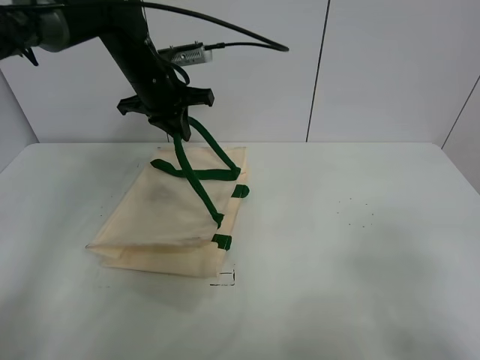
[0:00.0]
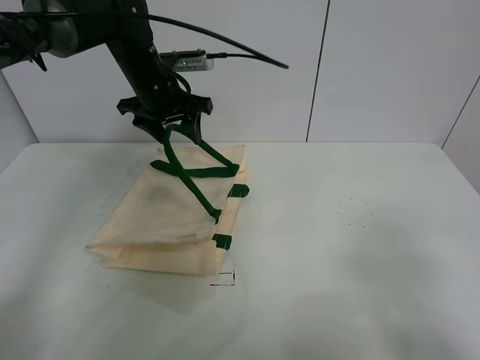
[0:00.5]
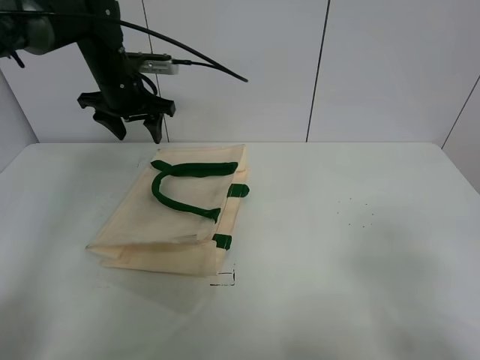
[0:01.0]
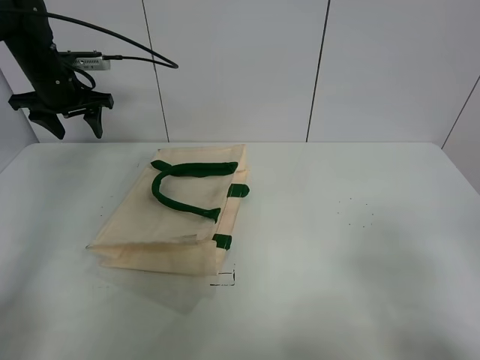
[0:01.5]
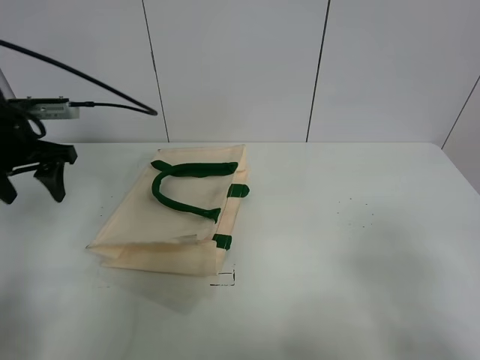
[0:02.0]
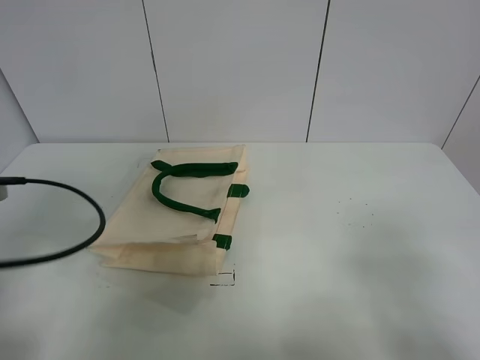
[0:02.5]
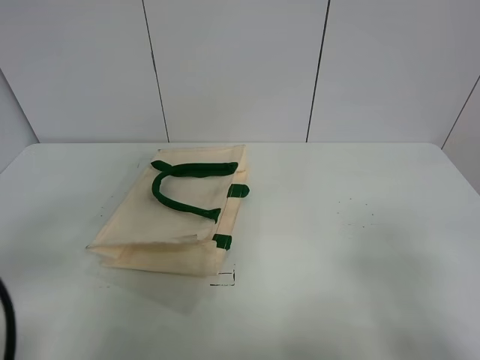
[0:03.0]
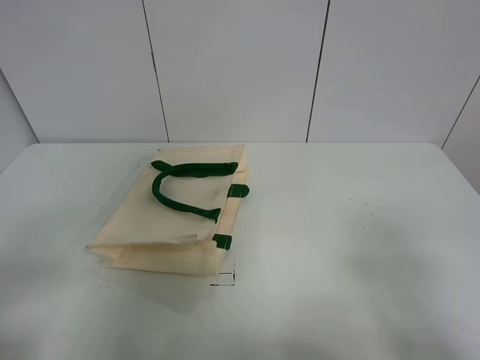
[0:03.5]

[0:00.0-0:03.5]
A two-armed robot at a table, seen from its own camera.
Task of the whole recording: open the white linen bag and put the orange in the bag.
0:00.0 to 0:02.0: The left gripper shifts roughly 20 cm to the left and backward, and opens its fingers.
0:02.0 to 0:03.5: The left gripper shifts approximately 30 cm backward.

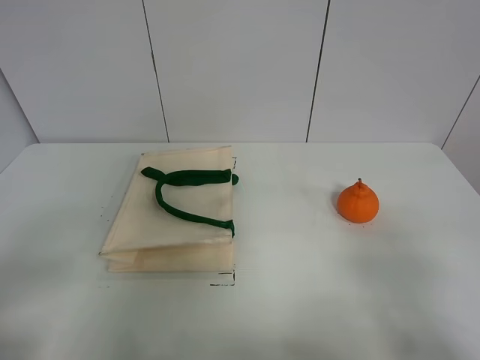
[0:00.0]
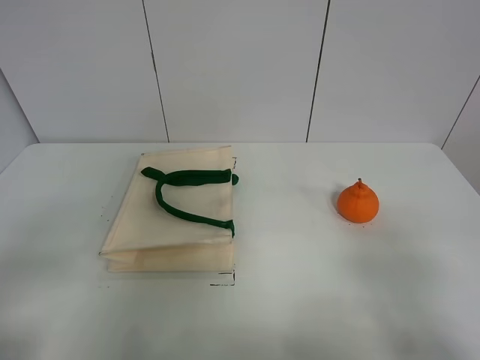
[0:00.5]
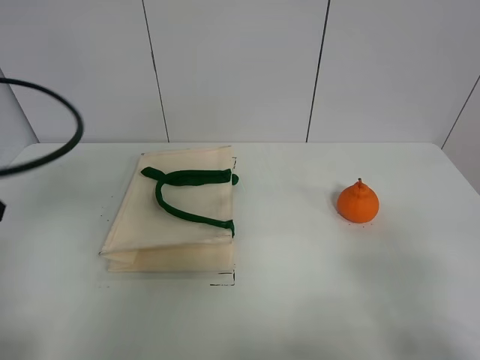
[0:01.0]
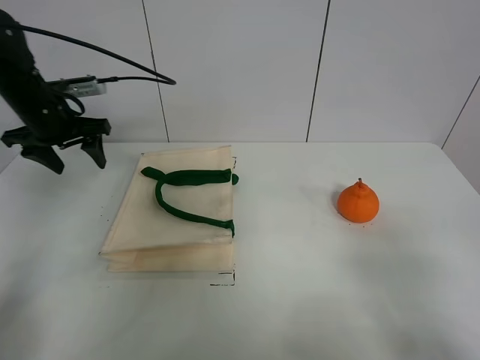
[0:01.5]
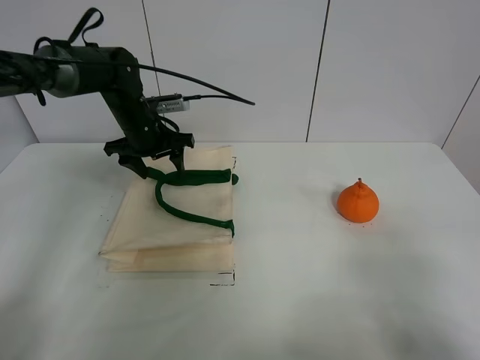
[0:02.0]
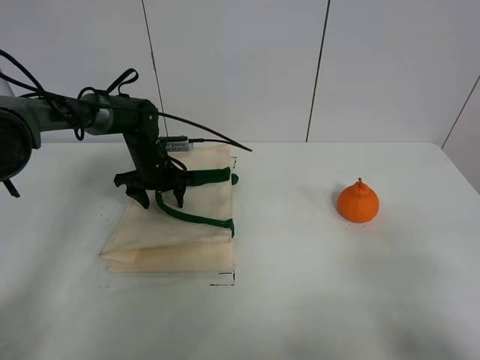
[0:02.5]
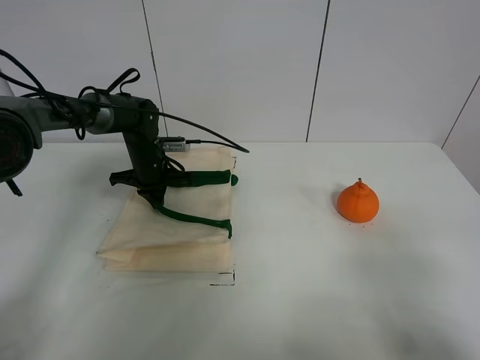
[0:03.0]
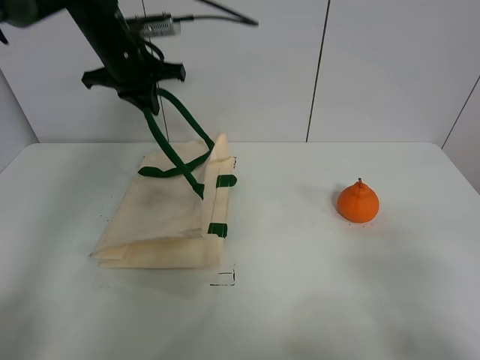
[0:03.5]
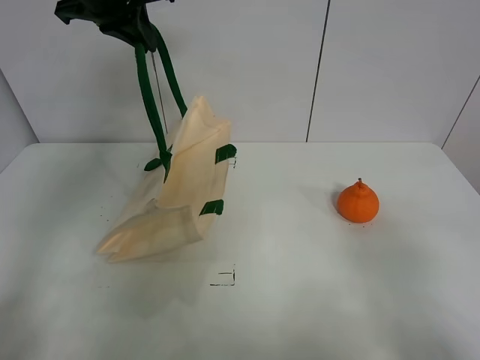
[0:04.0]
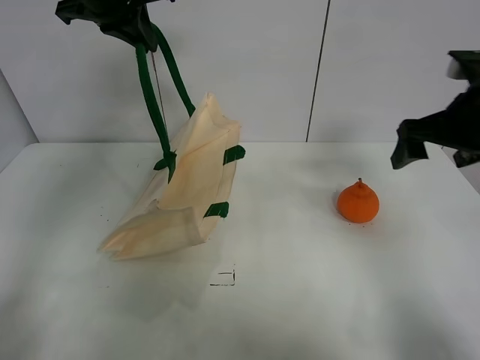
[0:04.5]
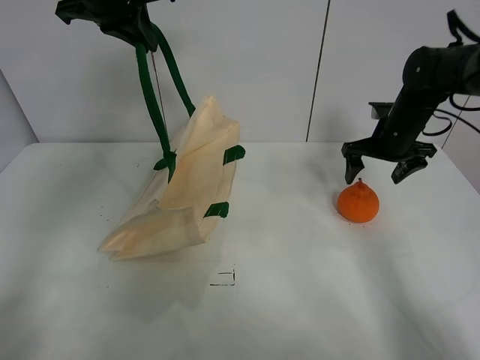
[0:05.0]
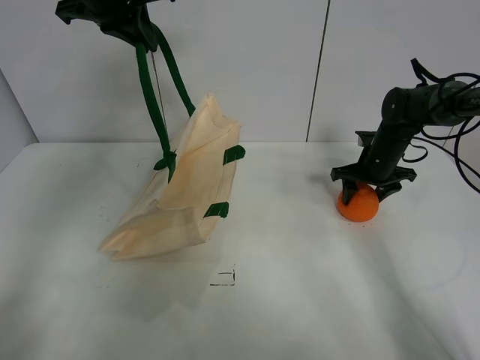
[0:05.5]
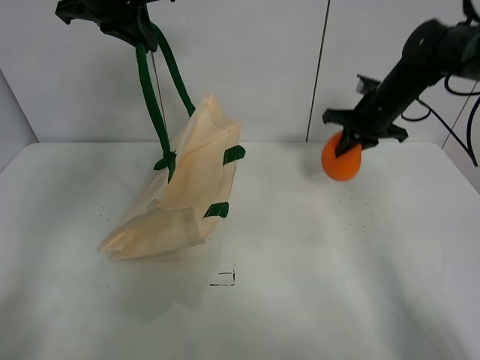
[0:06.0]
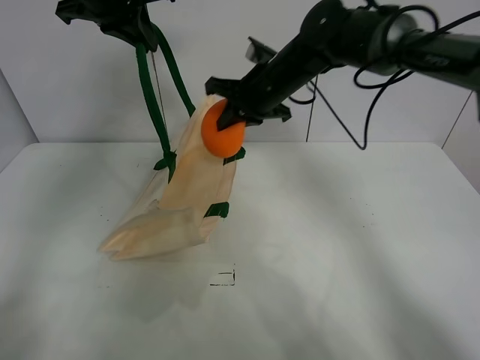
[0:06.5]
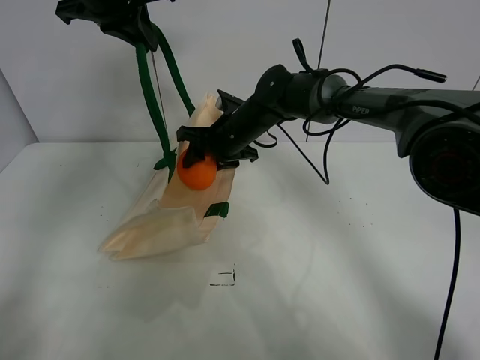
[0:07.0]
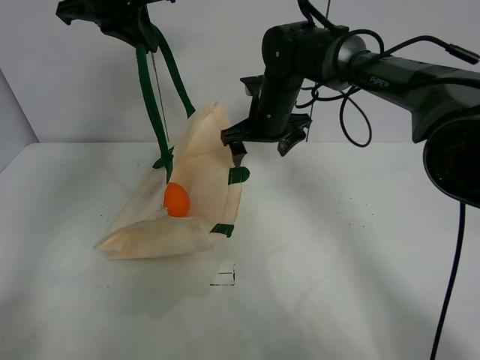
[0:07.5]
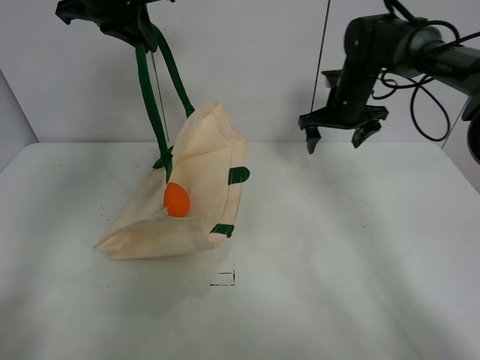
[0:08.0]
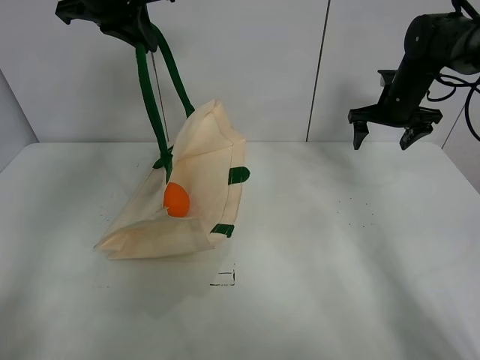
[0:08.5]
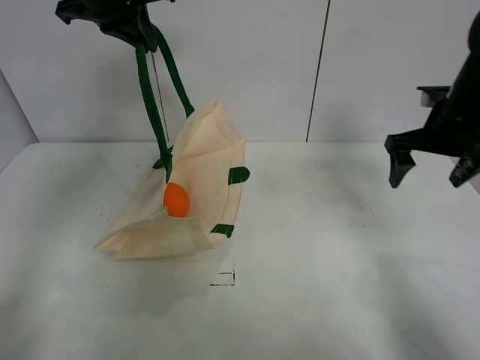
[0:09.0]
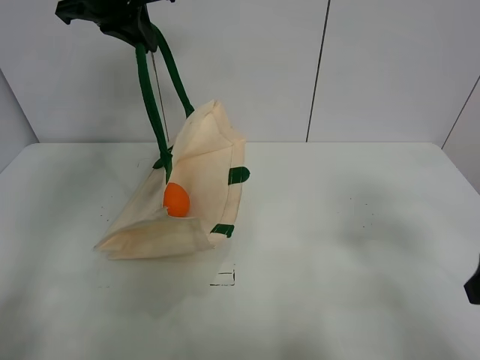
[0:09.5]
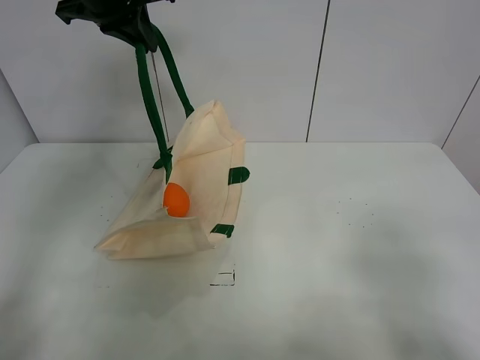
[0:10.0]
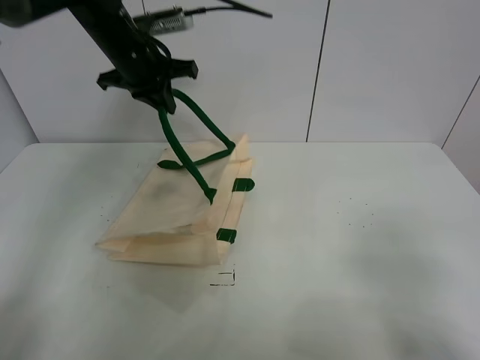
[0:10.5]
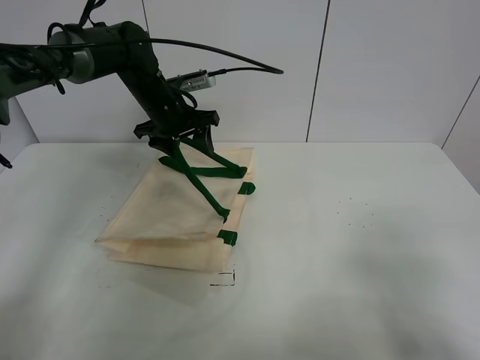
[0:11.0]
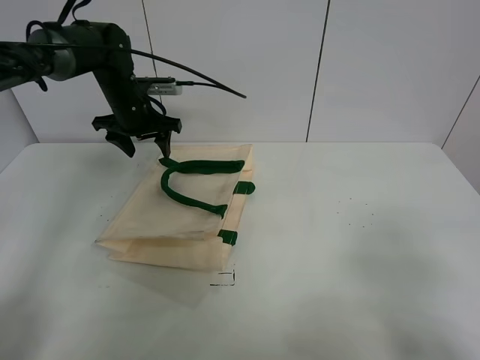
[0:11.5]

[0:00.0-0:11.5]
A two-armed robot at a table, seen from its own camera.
Task of the whole recording: open the white linen bag and put the orange in the bag.
Step, 0:00.0 to 0:03.5: Lift the handbag with left gripper.
Step, 0:04.0 to 0:05.5: Grasp the orange with right gripper.
Step, 0:06.0 to 0:07.0: Place the orange in the handbag with right gripper.
Step, 0:07.5 to 0:11.0: Put down the handbag with left gripper.
0:00.0 to 0:02.0: The left gripper is displaced forward by roughly 40 cm.
0:02.0 to 0:04.0: The left gripper shifts about 25 cm upward, and closes up.
0:04.0 to 0:06.0: The right gripper travels forward by about 40 cm, and closes its fingers.
0:06.0 to 0:07.5: The right gripper is displaced to the left by roughly 15 cm, and opens up.
0:07.5 to 0:09.5: The right gripper is displaced backward and to the right by some 40 cm.
0:09.5 to 0:11.5: The right gripper shifts some 10 cm backward. The left gripper is displaced downward by about 20 cm, and opens.

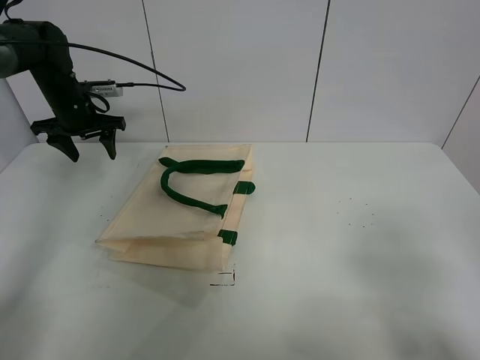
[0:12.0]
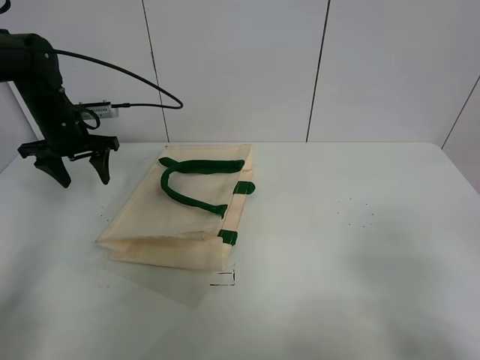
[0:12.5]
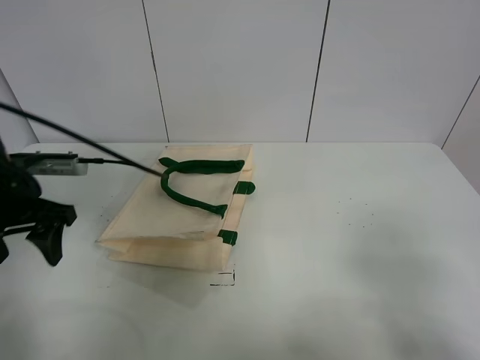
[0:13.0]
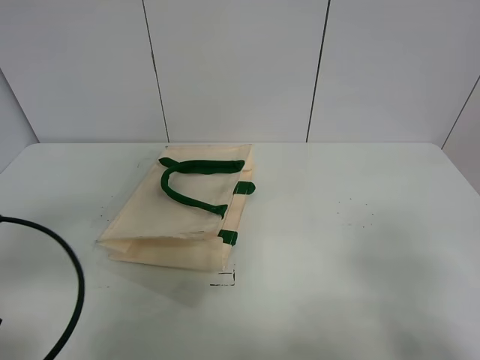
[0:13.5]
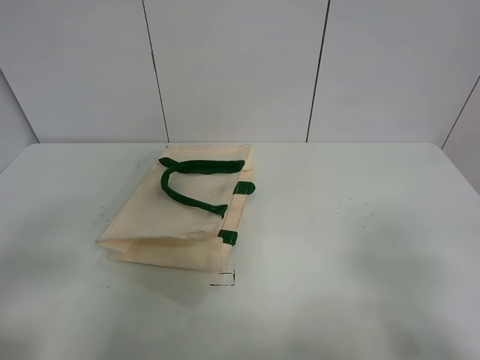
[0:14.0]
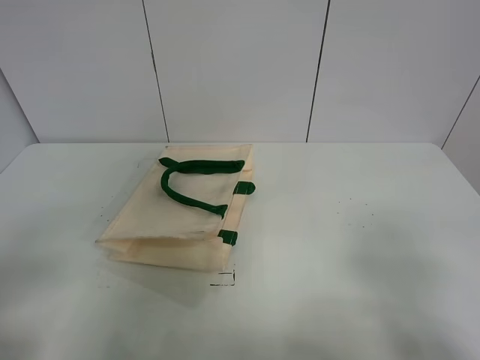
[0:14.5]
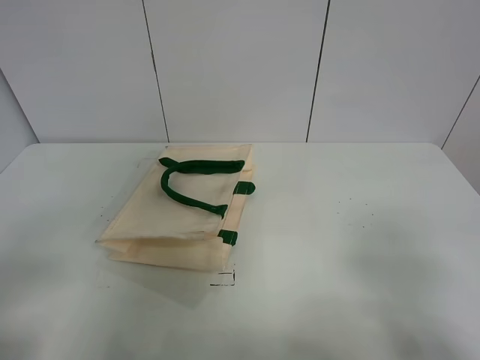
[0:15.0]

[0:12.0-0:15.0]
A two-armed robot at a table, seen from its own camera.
Task of the whole recording: open the white linen bag and put the orange in the bag.
0:12.0 to 0:13.5: The left gripper travels backward by approximately 40 cm.
0:13.5 to 0:15.0: The left gripper moves backward, some 10 cm.
